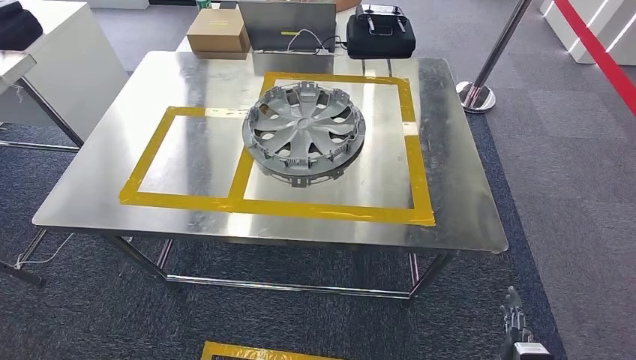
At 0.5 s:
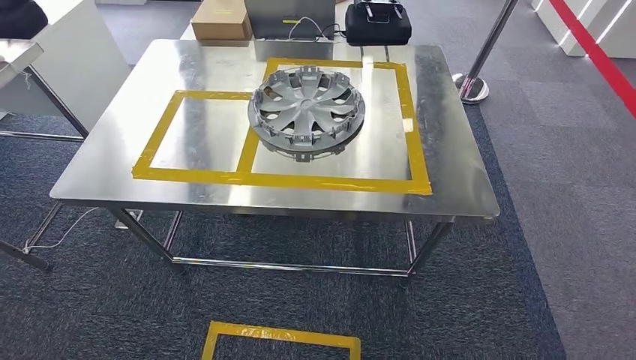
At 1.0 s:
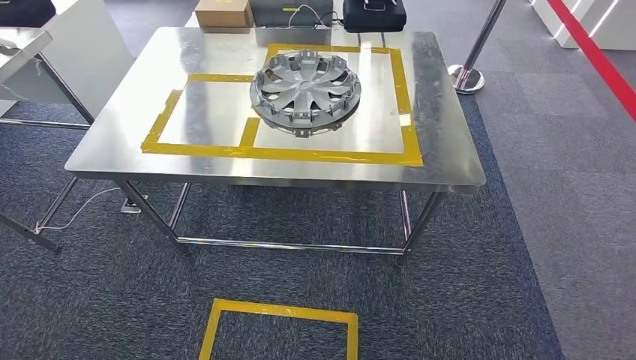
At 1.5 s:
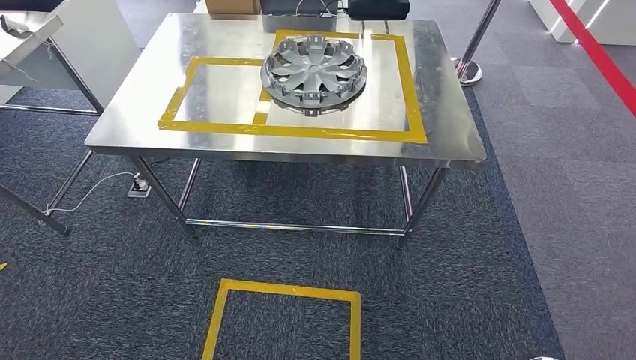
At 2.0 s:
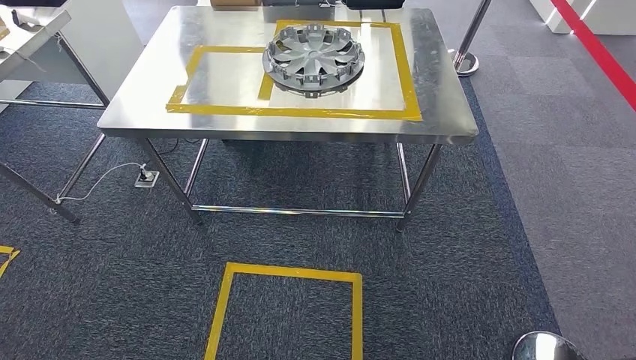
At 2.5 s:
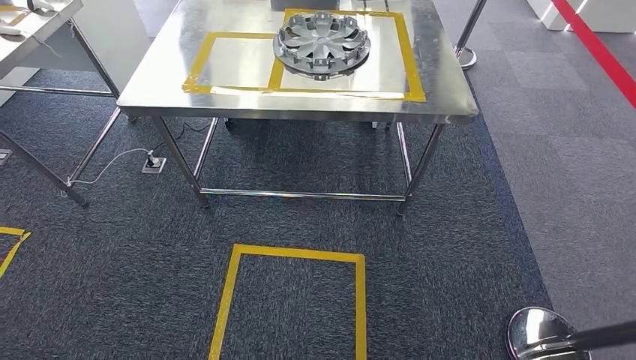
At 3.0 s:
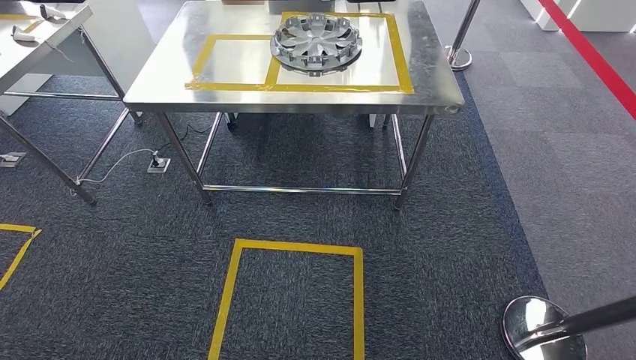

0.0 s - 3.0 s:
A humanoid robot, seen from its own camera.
Step, 0.0 s - 3.0 s: Move to the initial position of the workbench.
